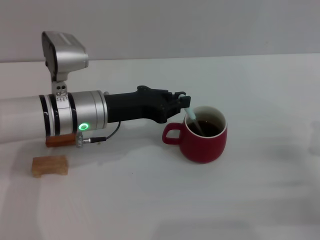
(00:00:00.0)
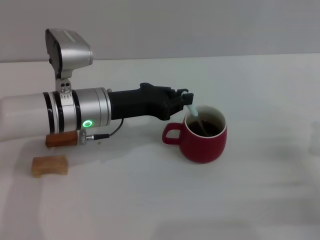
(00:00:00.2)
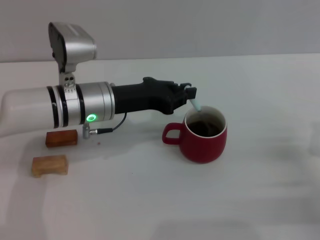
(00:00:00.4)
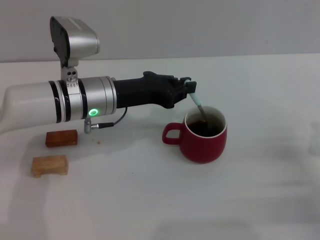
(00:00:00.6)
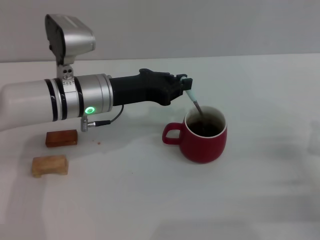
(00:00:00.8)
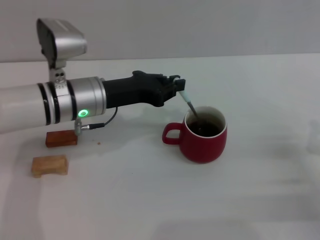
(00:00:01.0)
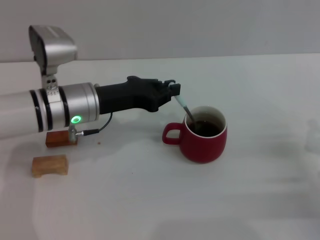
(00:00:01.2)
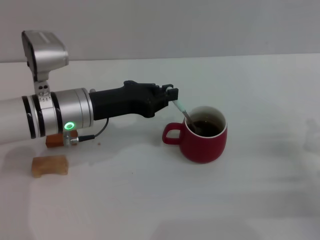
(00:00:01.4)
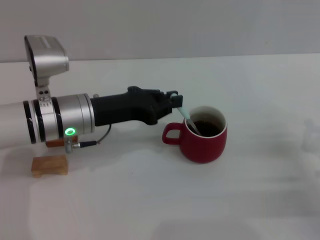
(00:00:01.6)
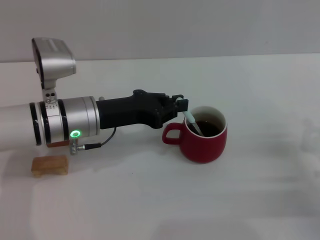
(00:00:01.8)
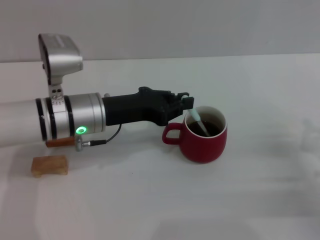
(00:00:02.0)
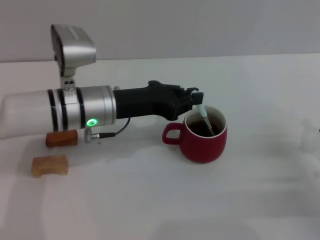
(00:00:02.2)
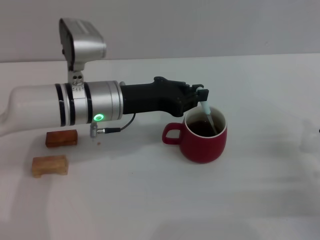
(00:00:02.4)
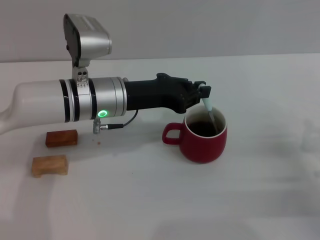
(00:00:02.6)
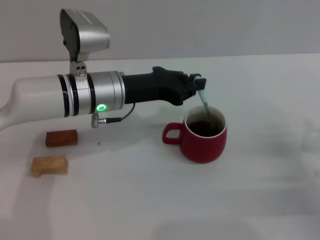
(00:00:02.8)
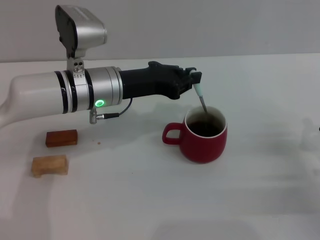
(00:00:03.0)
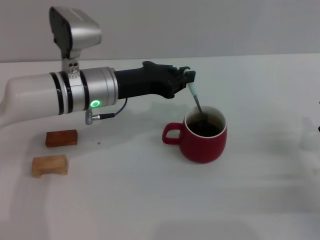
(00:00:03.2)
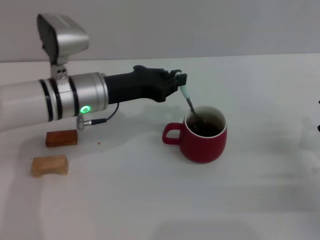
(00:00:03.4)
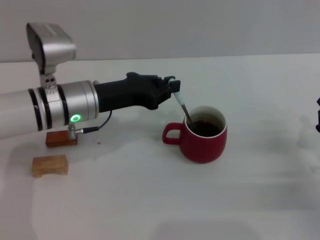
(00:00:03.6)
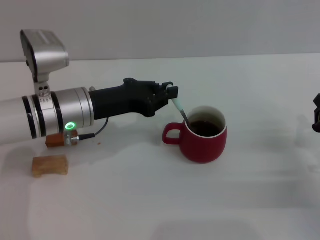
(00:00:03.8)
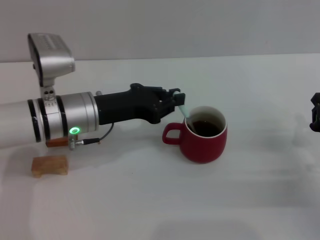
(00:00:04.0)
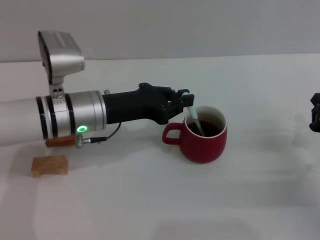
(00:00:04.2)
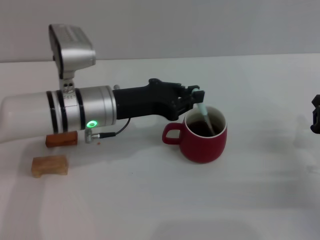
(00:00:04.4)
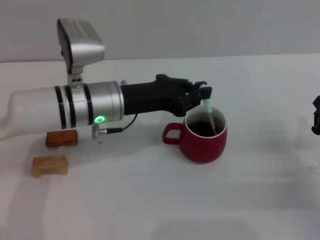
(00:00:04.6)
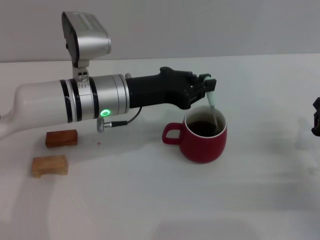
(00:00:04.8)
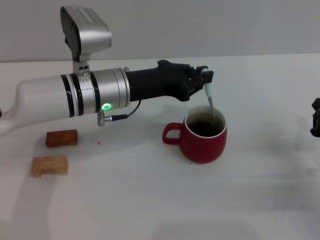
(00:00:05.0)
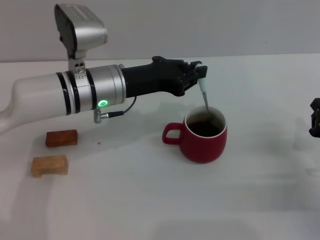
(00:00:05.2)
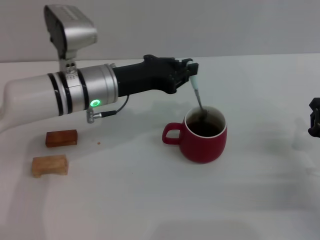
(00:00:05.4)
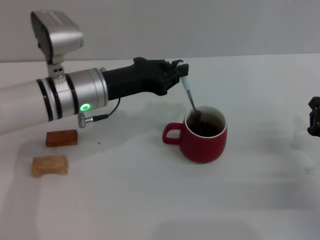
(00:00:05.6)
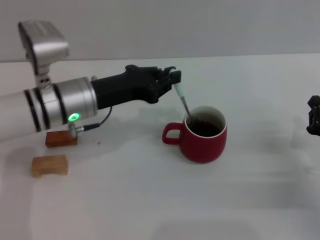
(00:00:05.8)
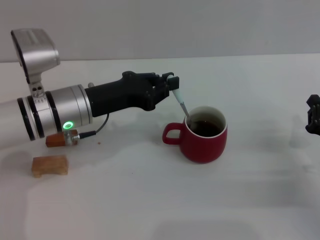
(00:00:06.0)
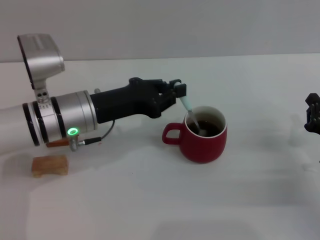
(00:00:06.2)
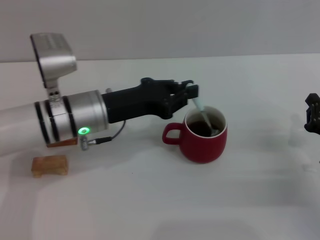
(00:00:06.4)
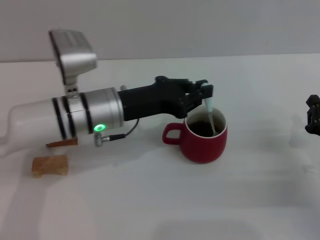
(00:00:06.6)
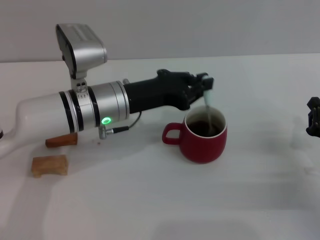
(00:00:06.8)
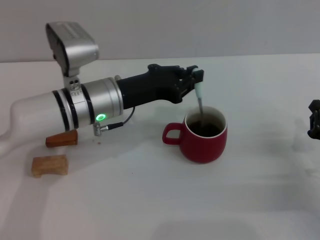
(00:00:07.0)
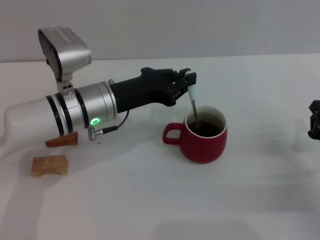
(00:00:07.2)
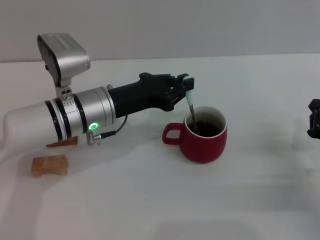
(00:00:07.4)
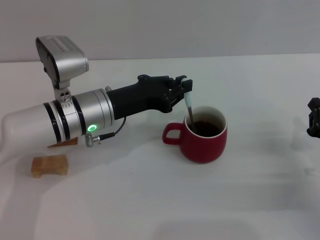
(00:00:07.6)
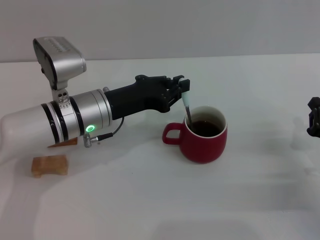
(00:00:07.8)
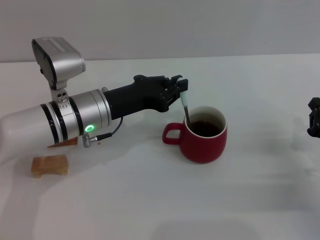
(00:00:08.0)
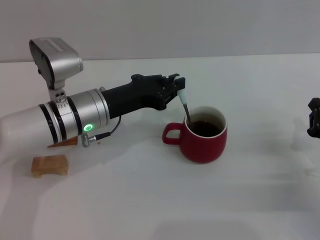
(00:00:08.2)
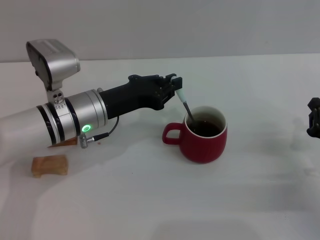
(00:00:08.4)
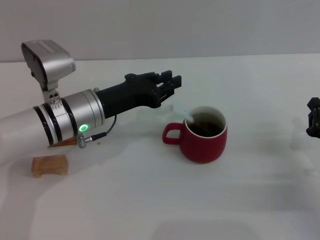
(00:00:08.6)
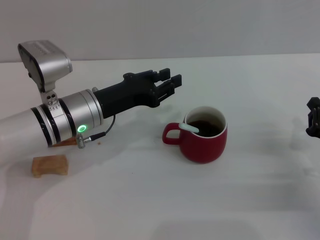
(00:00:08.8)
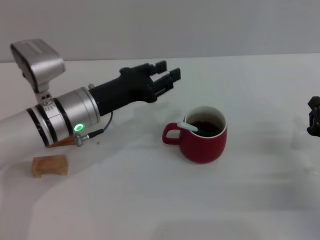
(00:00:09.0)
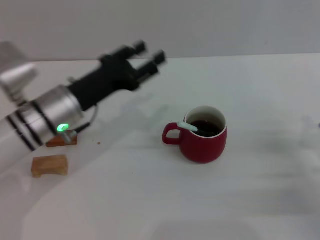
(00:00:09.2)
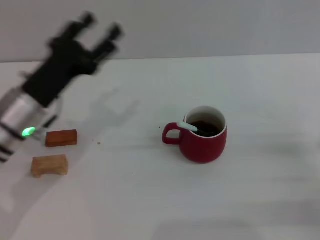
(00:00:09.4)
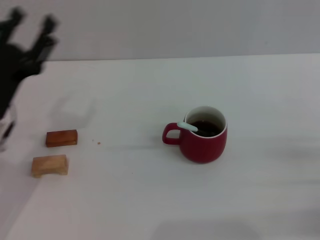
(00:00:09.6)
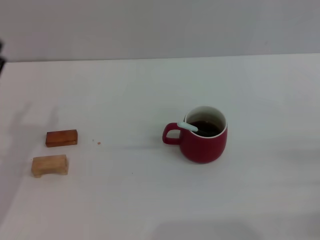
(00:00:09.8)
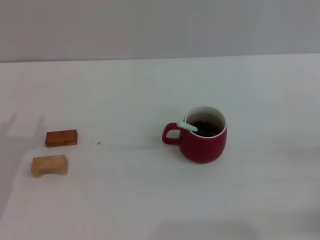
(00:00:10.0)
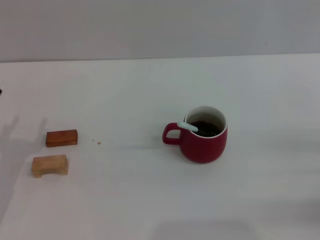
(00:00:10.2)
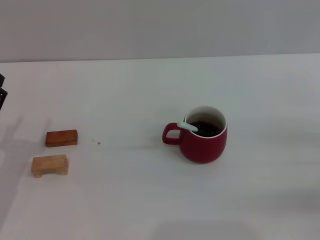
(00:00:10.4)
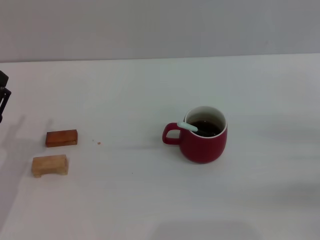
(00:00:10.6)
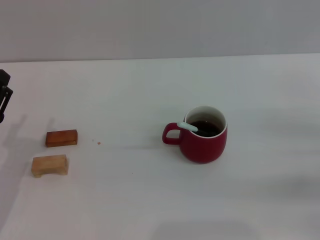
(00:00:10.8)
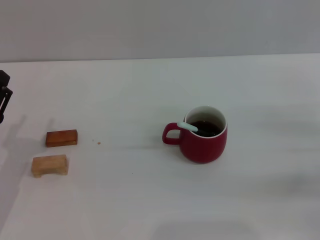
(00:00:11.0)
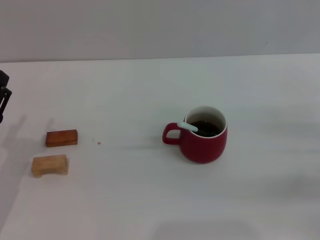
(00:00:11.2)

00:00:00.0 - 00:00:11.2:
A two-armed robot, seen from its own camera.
Task of the whole recording: Move the red cup to the center, lift the blue spoon, stir it three times in the cup, and put the spoon into the cup.
Step, 00:00:00.0 - 00:00:08.6: Stir the coffee in the cup with the left gripper.
00:00:00.0 - 00:00:08.0: The grippers make only small movements.
00:00:08.0 - 00:00:09.6: The right gripper shifts by about 5 cm. The left gripper is displaced to the left and backward by about 15 cm, and opens up.
00:00:09.6 - 00:00:11.2: The left gripper is displaced backward by approximately 5 cm.
